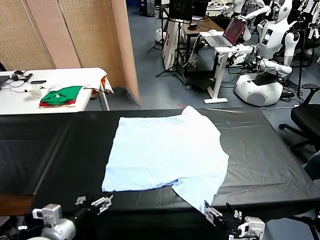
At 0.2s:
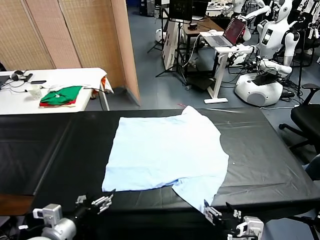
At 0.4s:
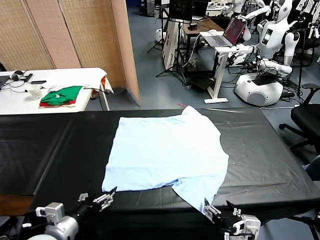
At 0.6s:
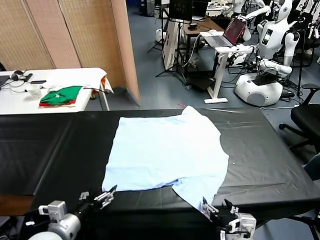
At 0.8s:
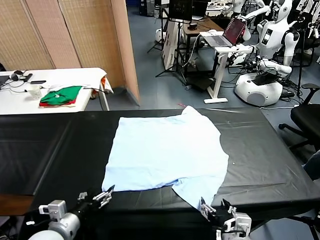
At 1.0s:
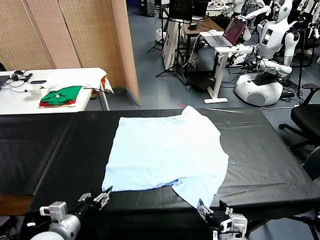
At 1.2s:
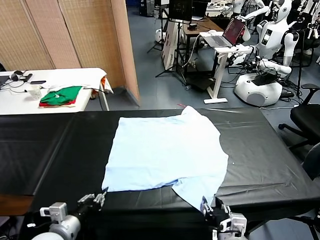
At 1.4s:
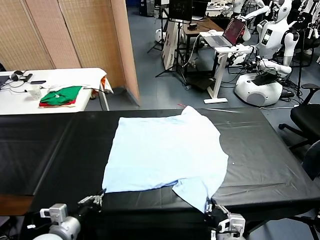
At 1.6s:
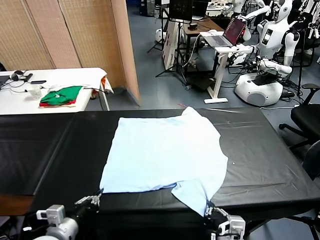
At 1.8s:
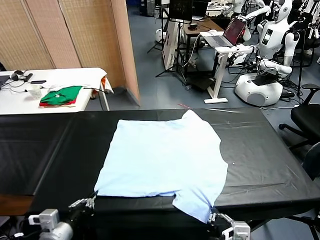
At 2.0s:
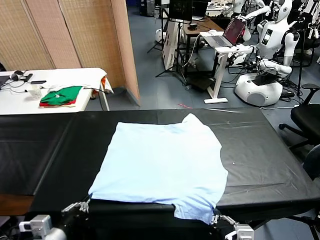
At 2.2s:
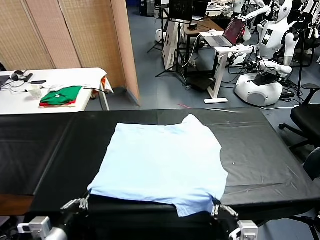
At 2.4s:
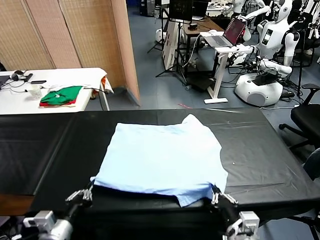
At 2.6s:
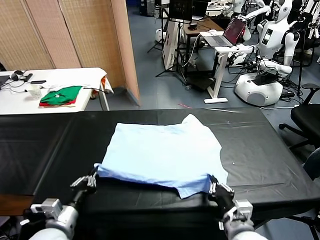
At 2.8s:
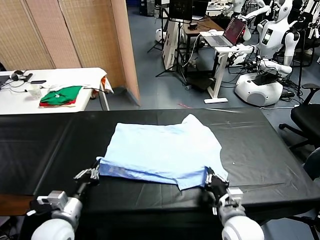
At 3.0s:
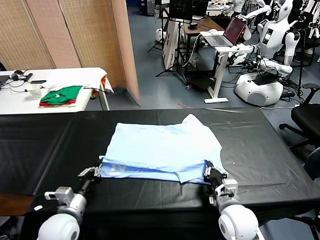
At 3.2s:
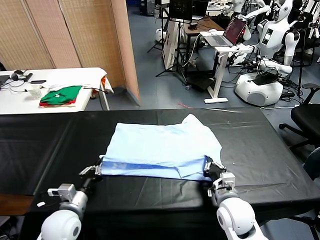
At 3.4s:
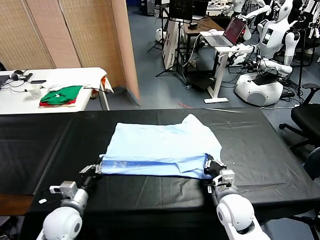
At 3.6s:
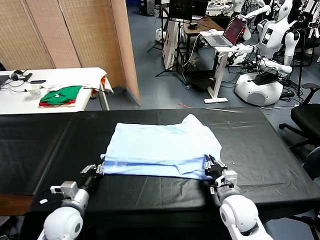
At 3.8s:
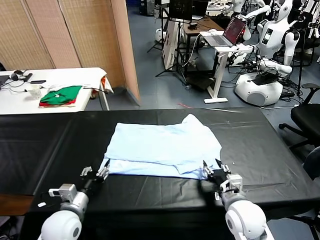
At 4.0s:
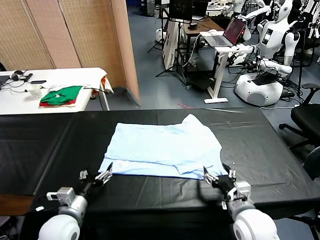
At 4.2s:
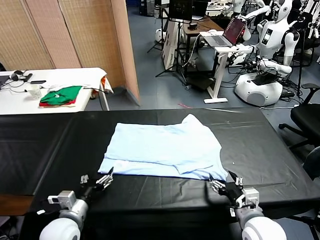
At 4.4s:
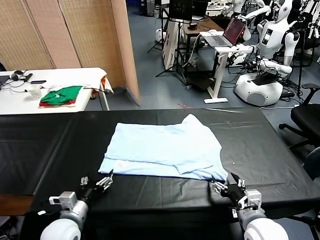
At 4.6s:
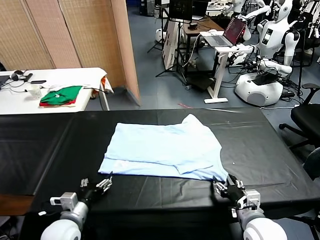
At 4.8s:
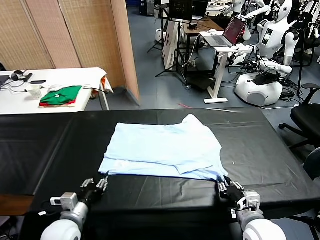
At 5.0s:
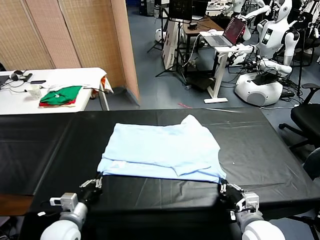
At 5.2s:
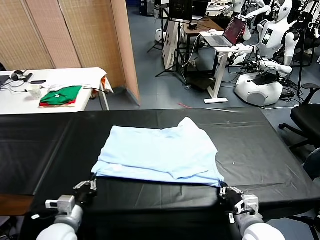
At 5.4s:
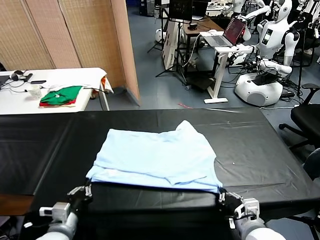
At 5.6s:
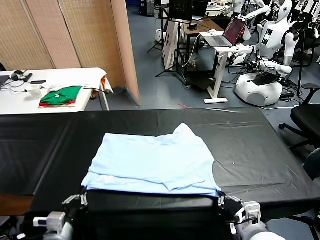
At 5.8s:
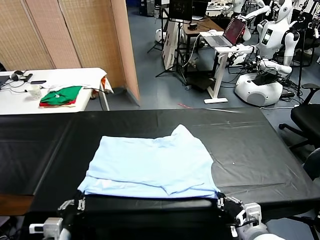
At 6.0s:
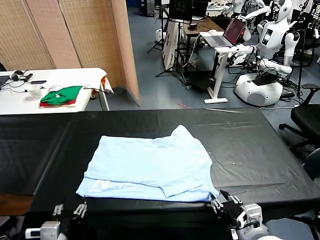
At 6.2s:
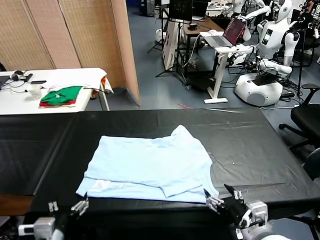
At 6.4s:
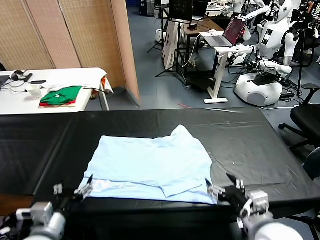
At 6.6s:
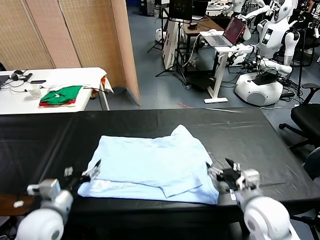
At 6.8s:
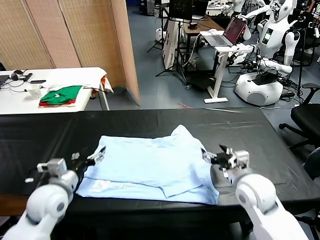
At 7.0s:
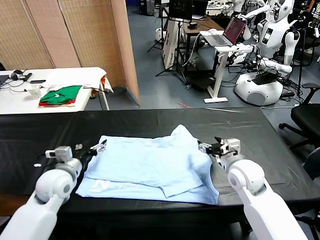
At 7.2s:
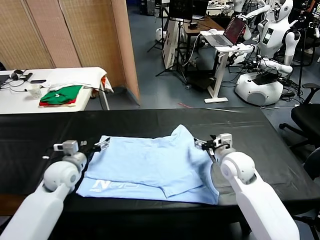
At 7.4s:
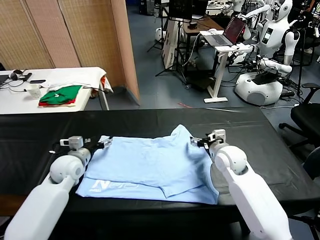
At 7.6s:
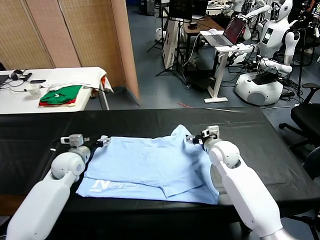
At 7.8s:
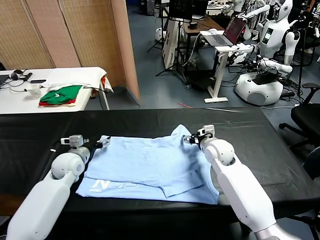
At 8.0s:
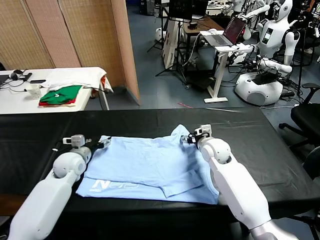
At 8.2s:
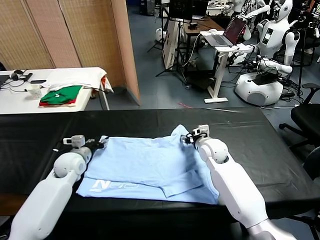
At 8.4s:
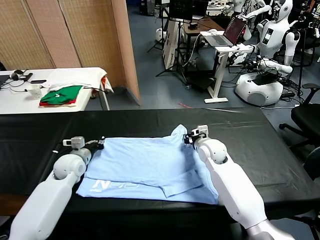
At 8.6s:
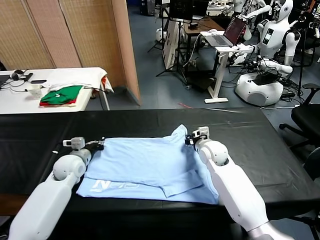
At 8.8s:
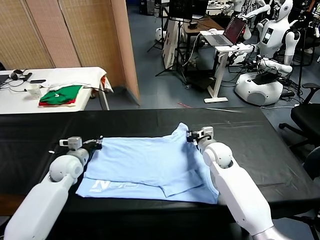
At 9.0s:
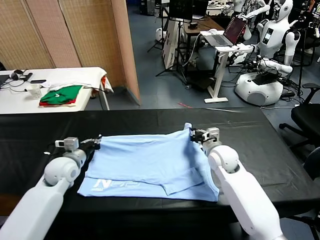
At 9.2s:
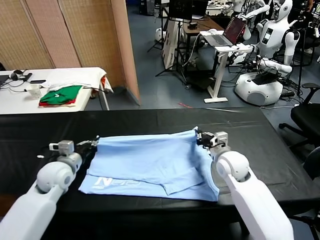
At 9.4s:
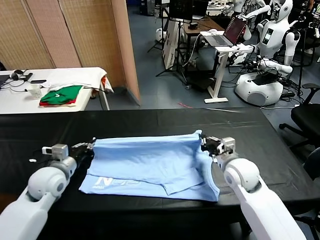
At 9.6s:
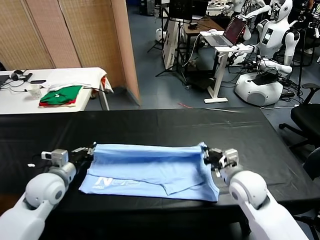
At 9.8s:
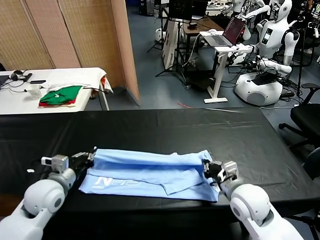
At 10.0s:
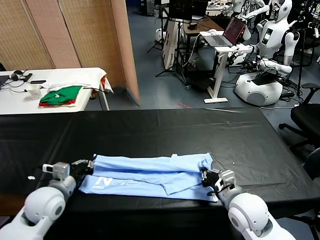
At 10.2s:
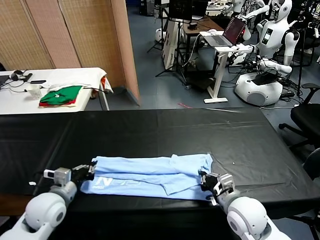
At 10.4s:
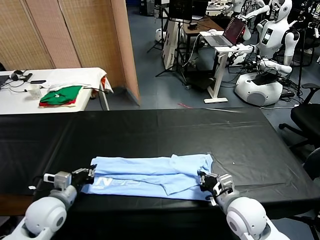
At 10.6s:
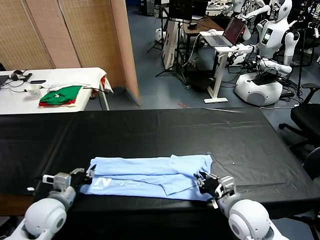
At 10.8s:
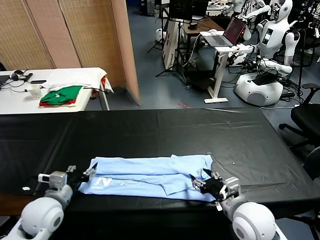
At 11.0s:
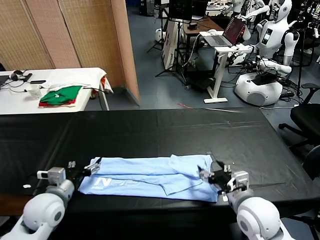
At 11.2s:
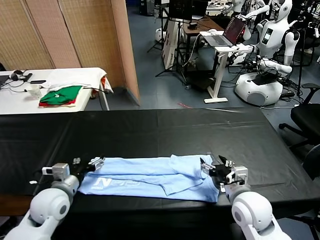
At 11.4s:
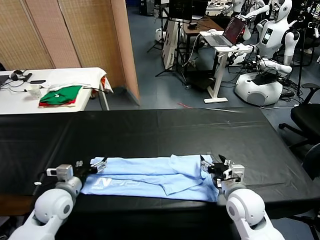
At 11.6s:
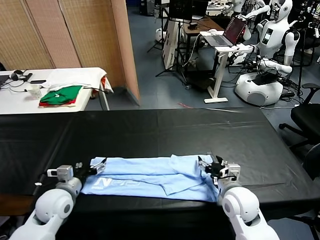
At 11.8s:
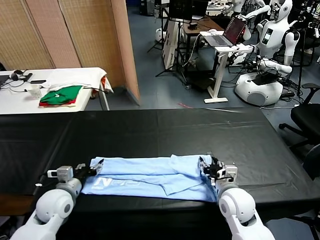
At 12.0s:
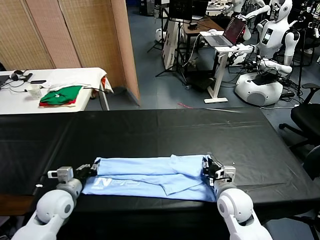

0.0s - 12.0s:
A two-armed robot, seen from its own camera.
Task of the whole recording: fold and organize the clothes.
Step, 0.0s - 1.2s: use both grippers simultaneously to clamp the lower edge of the clothing fabric.
Step, 1.6s - 3.6s: use both grippers to drag the lower edge of the fabric forward and fold it over the upper edge.
Step, 3.8s - 6.0s: Drag the clothes downward with both gripper.
Step, 6.2s - 8.4s: use both grippers simultaneously to clamp the upper edge of the clothing fabric.
Step, 8.6s - 10.6s: use both grippers to drag the upper edge of the fabric backward and fold it over the lower edge.
1.6s - 3.0s: The right gripper heads forward, covering roughly 15 cm. Meanwhile the left gripper moves forward, some 10 cm.
3.0s - 4.4s: The left gripper opens up. Meanwhile the right gripper travels backward and to the right by approximately 10 cm, and opens its fingers.
4.4s - 6.0s: The left gripper heads backward and upward, covering some 10 cm, and closes and opens again. The right gripper shifts about 10 cm upward, and opens its fingers.
6.0s - 7.6s: Both grippers move forward, approximately 30 cm.
7.6s - 9.0s: The left gripper closes its fingers. Meanwhile the right gripper travels backward by some 5 cm, and closes.
9.0s - 10.4s: The two grippers go some 15 cm backward.
10.4s - 12.0s: The left gripper opens, then closes once more. The right gripper moves forward and downward, some 10 cm, and opens and closes again.

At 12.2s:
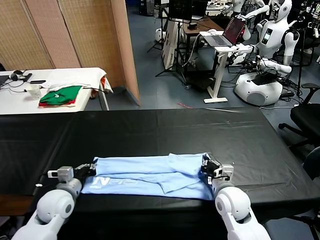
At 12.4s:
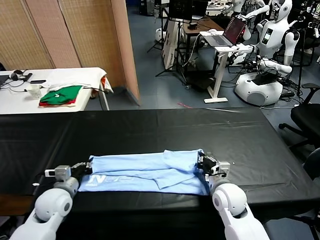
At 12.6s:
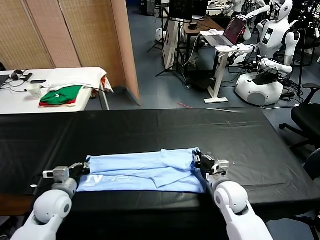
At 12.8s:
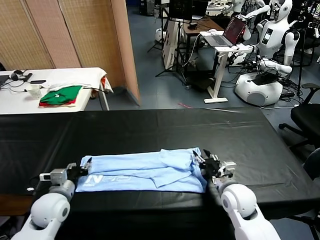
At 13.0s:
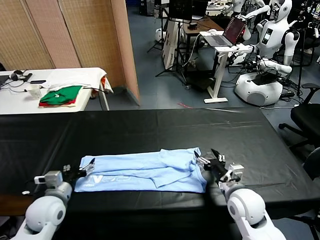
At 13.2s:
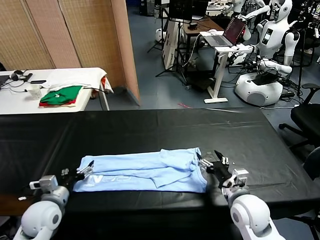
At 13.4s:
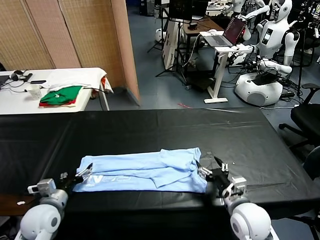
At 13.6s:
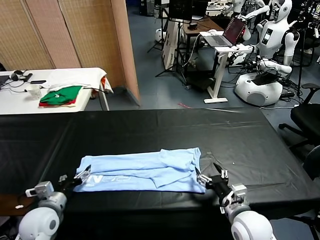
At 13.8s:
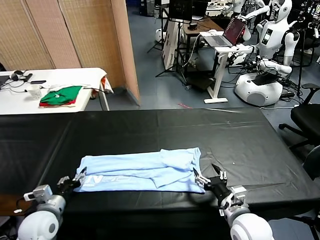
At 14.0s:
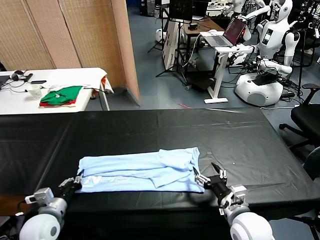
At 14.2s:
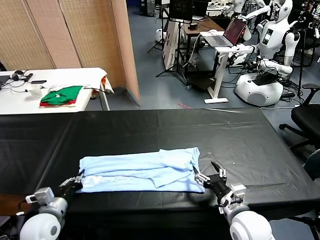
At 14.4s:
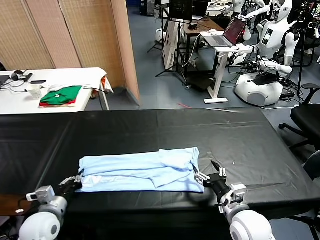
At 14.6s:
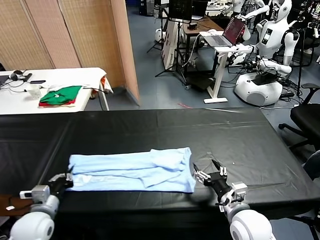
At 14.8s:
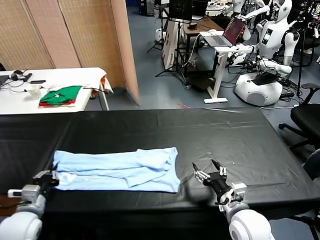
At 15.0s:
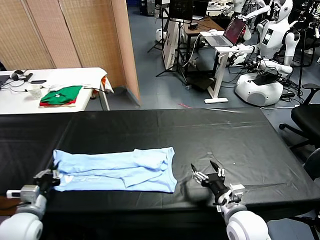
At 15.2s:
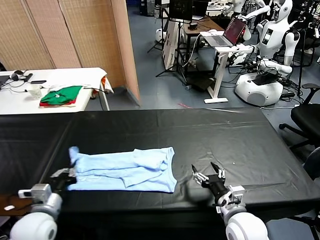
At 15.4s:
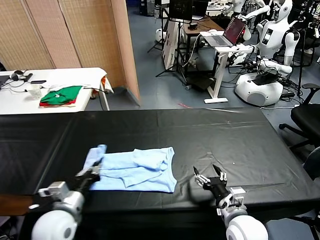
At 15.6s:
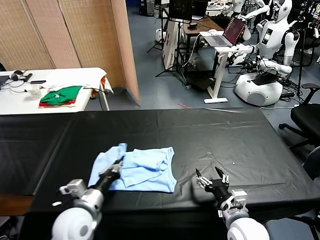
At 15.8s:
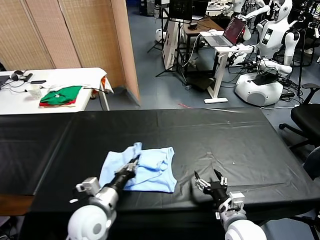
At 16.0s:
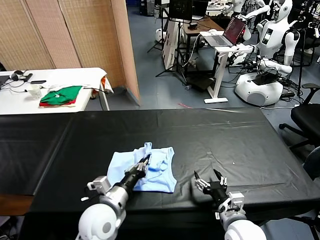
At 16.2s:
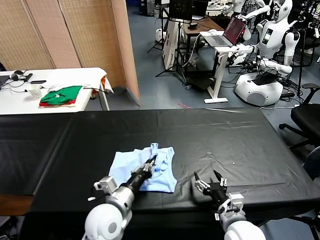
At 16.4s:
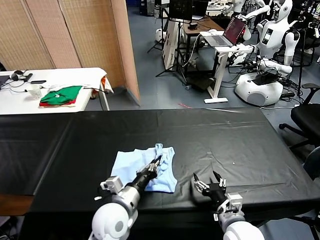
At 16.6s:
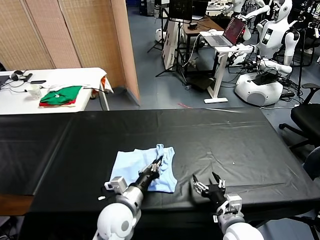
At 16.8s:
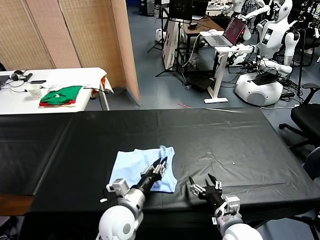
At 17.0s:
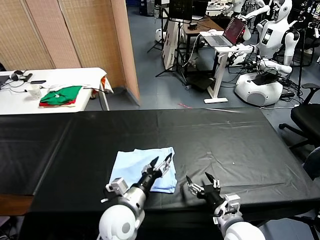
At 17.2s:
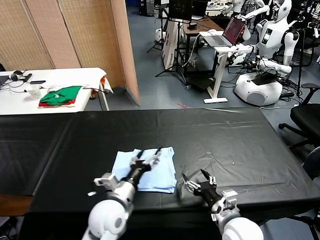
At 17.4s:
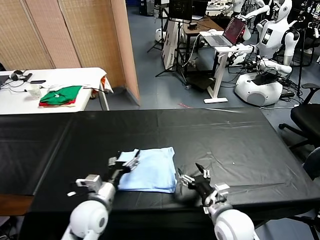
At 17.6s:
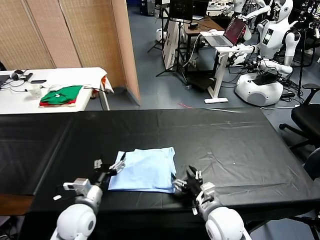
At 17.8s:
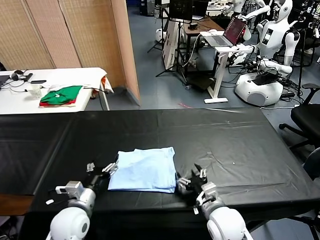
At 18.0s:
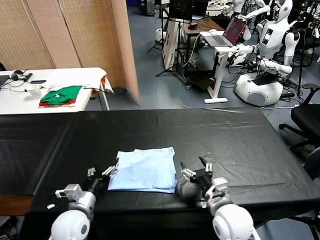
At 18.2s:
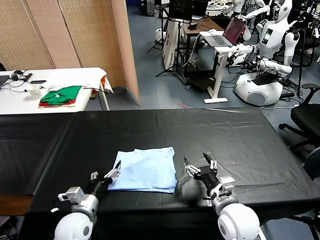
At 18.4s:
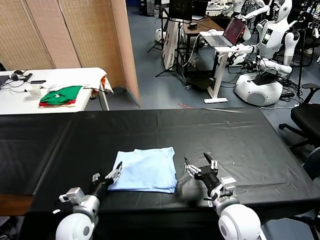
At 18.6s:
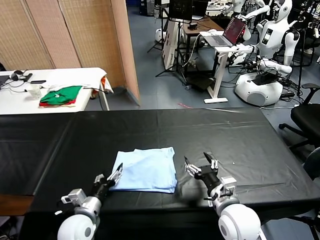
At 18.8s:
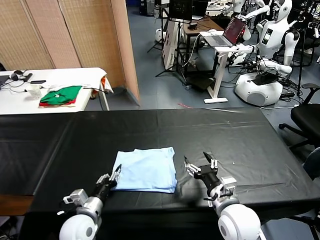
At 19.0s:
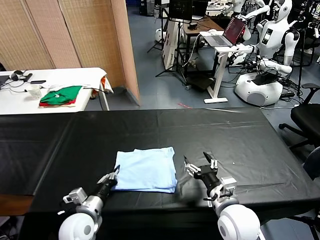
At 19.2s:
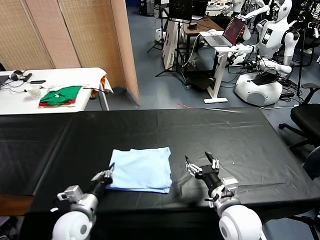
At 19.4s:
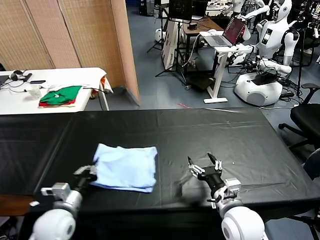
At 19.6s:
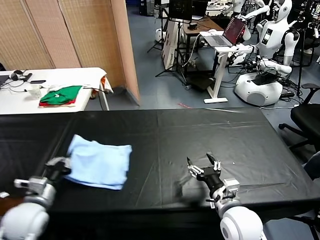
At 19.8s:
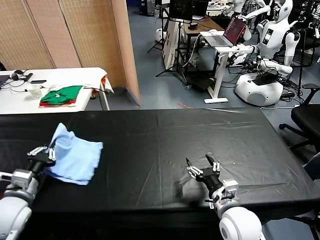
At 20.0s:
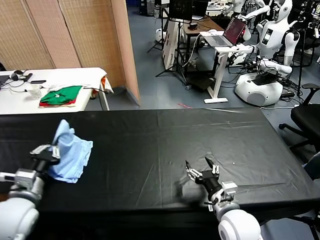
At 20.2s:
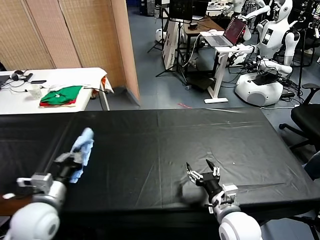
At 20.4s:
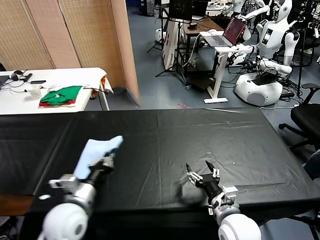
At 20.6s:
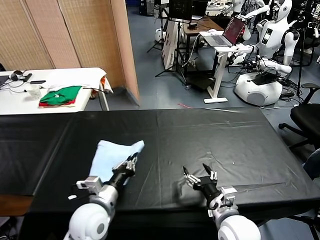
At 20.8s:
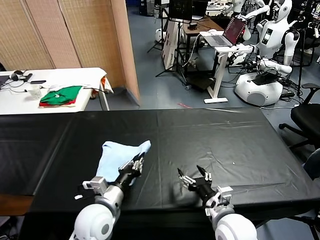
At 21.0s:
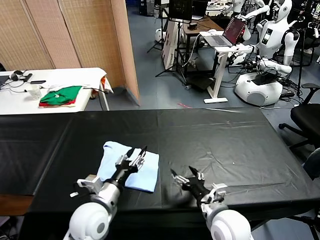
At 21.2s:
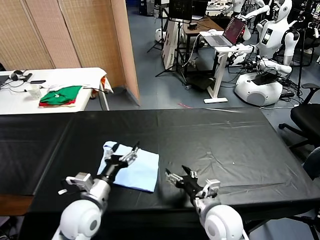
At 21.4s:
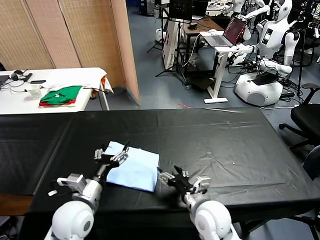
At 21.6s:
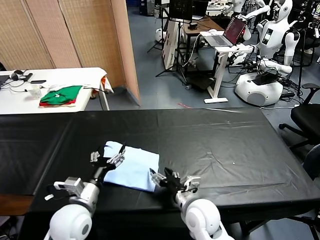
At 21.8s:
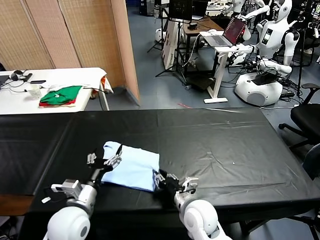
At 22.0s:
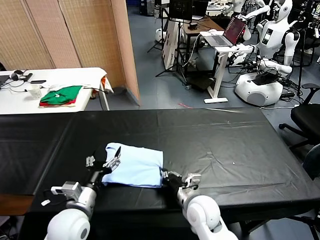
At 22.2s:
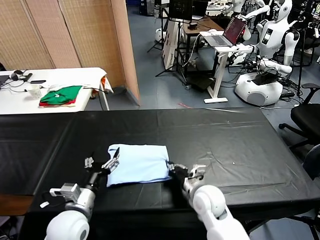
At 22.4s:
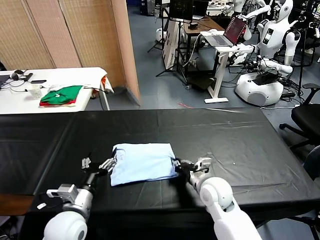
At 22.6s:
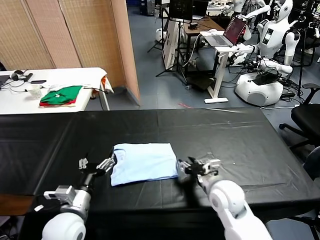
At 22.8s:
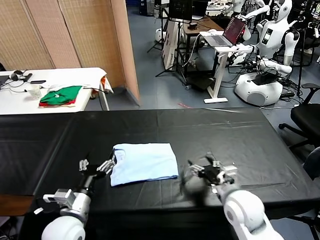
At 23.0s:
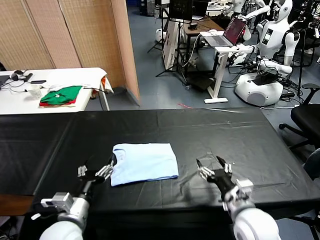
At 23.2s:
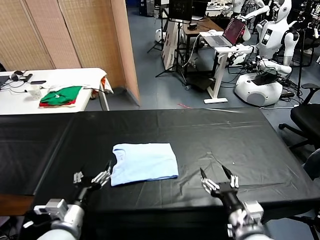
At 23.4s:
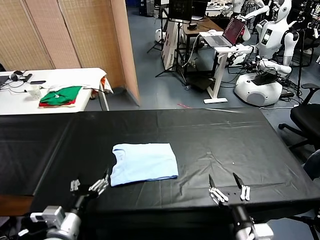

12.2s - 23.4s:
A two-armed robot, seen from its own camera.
Task of the whole recording: fold and organize the clothes.
Step, 12.2s - 14.0s: use the left gripper to clamp the left edge of the fabric.
Step, 14.2s - 16.8s: use the left gripper to drag the left edge of the fabric to the left and folds it over the right edge.
Step, 17.0s - 20.8s: Flip the folded clothes over with left gripper.
Step, 21.0s - 22.4s: Drag the clothes to the center of the table.
12.2s - 13.8s: The right gripper heads backward, covering some 10 cm, and opens. Meanwhile the left gripper is displaced backward by about 5 cm, and opens up.
13.8s - 15.4s: The left gripper is displaced to the right and upward by about 10 cm, and closes.
15.4s - 17.0s: The left gripper heads to the right, covering some 15 cm, and opens its fingers.
17.0s - 18.6s: The left gripper is displaced to the left and downward by about 15 cm.
18.6s - 20.2s: The left gripper moves upward and to the left, about 15 cm, and closes up.
20.2s - 21.8s: The left gripper shifts some 5 cm to the right, and opens its fingers. The right gripper heads to the left and forward, covering approximately 10 cm, and closes up.
21.8s - 23.4s: The right gripper heads backward, to the right and upward, covering some 20 cm, and opens; the left gripper shifts some 5 cm backward.
